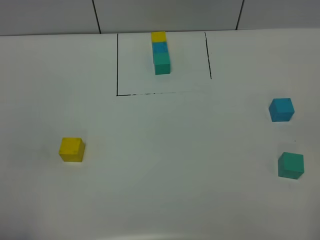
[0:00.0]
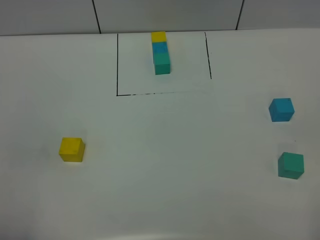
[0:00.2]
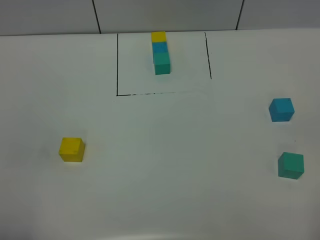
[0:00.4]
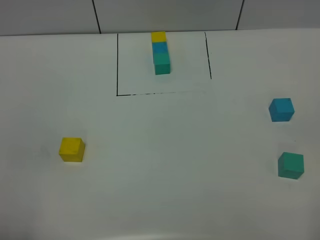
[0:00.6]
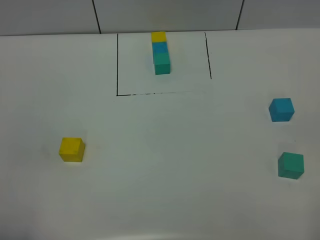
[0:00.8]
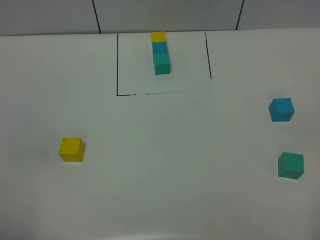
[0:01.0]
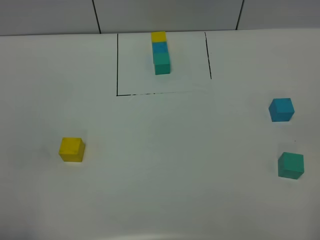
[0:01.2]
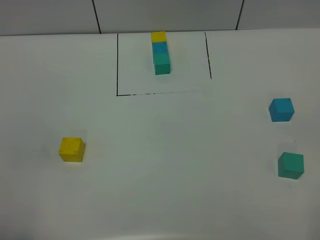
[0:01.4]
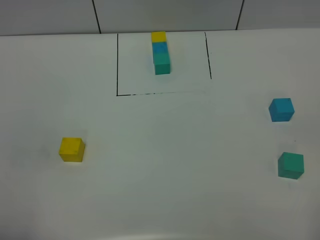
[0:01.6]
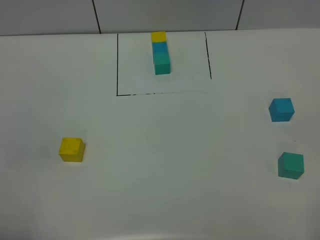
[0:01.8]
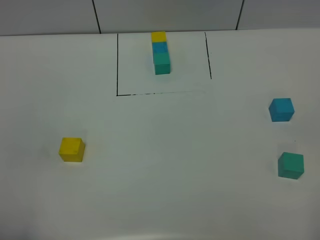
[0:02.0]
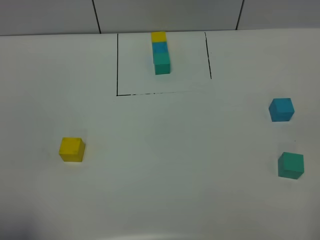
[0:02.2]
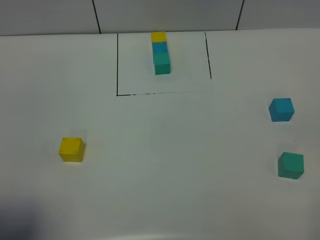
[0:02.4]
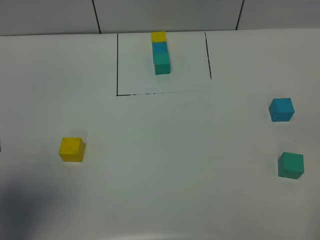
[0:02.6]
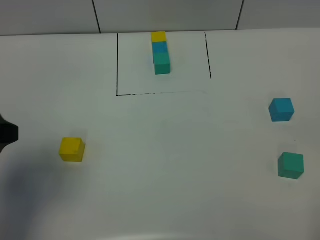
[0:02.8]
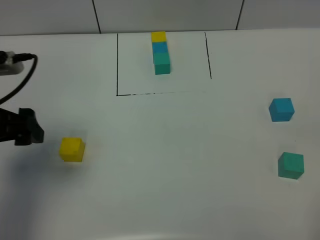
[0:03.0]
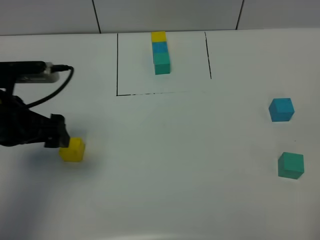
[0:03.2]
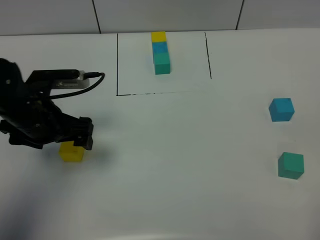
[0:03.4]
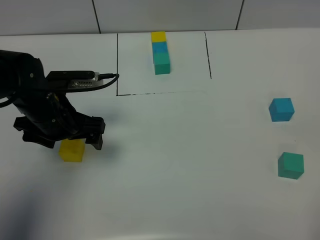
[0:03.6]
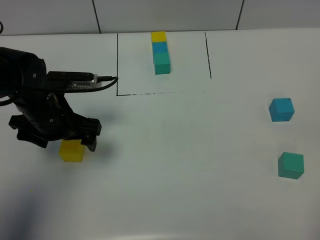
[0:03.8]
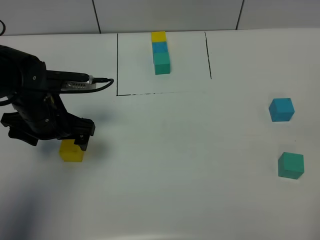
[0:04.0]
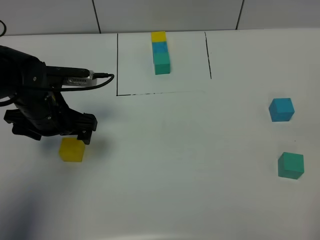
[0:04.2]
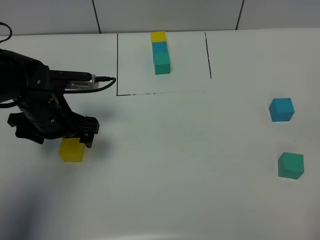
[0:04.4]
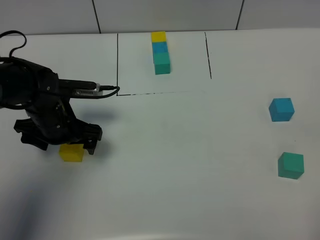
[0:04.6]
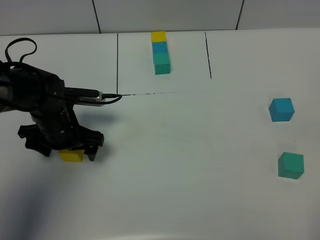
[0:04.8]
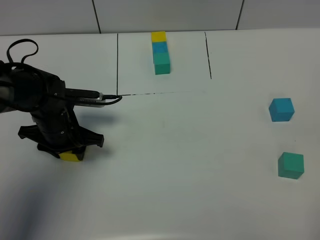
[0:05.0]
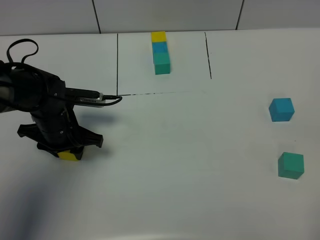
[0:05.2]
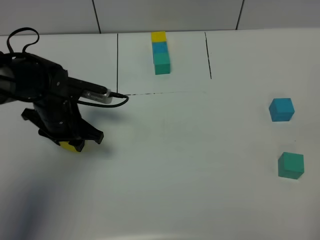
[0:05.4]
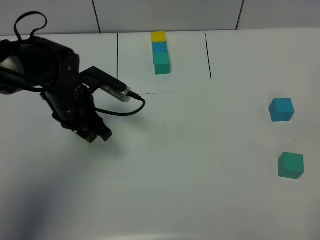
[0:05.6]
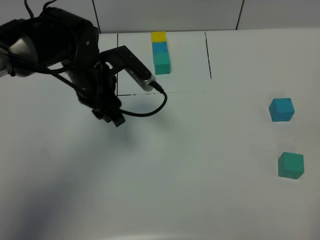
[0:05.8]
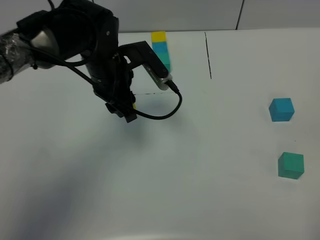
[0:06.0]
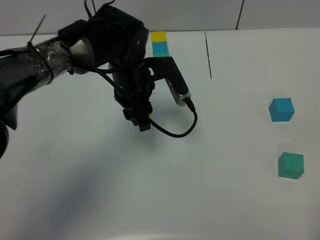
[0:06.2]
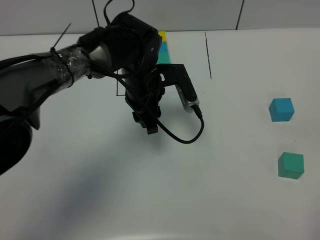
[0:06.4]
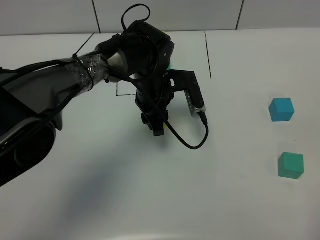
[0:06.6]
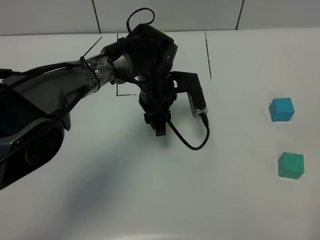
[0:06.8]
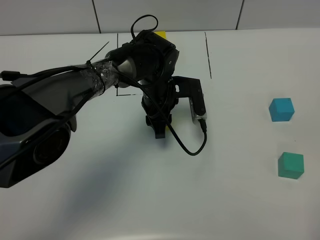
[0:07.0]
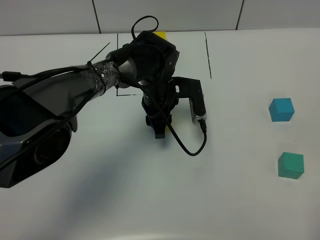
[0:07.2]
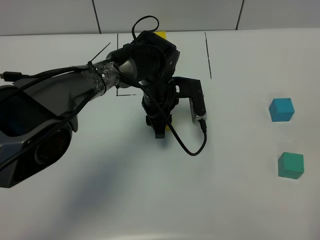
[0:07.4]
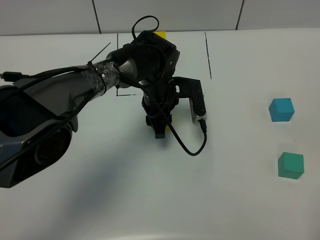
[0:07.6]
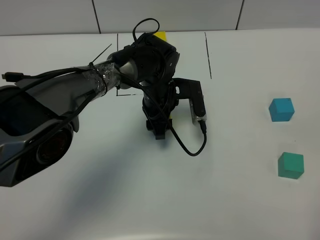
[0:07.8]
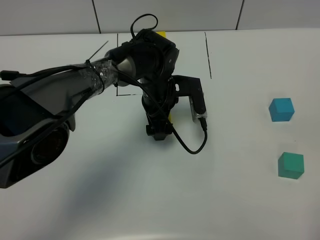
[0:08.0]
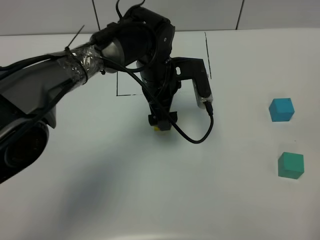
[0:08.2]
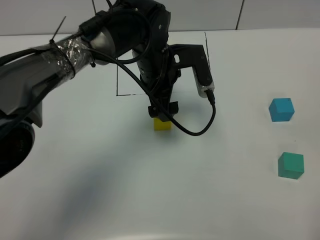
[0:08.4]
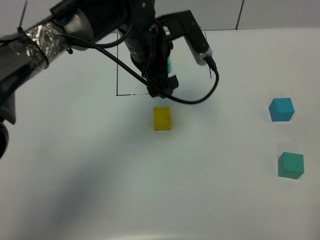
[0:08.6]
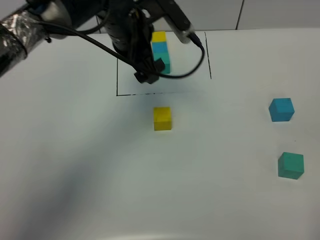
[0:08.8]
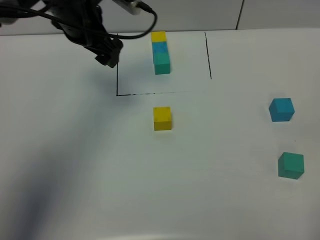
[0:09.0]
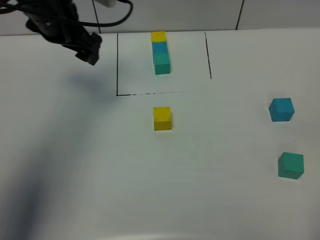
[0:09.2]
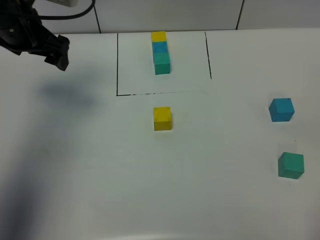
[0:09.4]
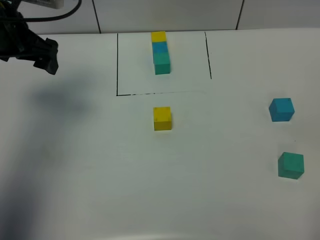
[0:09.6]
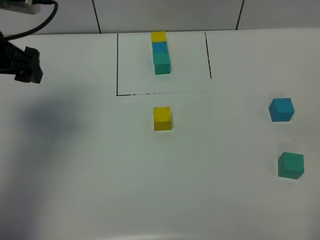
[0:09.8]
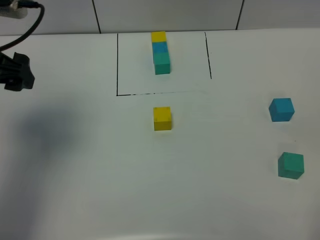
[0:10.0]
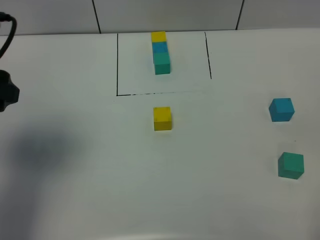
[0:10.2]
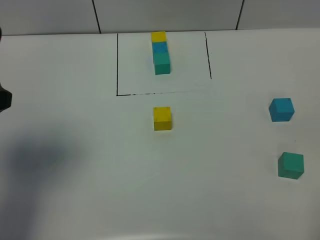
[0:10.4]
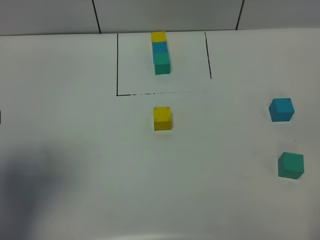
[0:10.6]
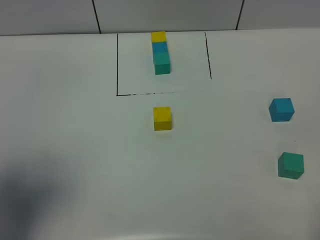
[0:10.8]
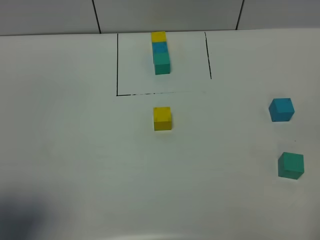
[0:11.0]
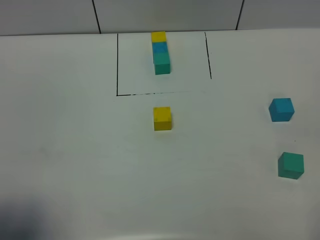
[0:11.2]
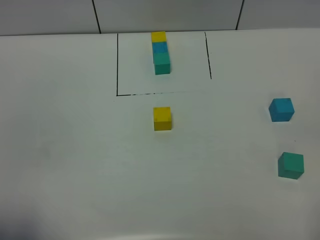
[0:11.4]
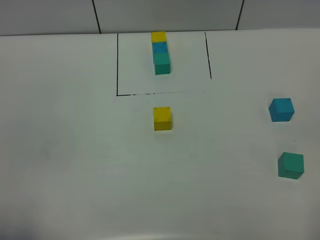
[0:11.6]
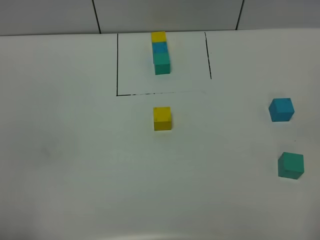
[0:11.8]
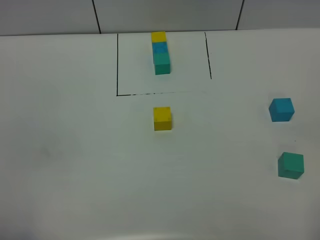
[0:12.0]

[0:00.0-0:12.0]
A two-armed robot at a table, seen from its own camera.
Task of the whole recording: According to the building block template in front, assemble the scattered blocks together.
Step, 0:00.0 to 0:07.8: Put the yellow build block in the center of the table.
0:00.0 to 0:01.6: Neither gripper changes place.
0:01.6 to 0:03.0: The left gripper moves forward, roughly 25 cm.
0:03.0 to 0:04.4: The left gripper is displaced downward, forward and to the right by some 15 cm.
0:04.4 to 0:06.0: The left gripper goes some 15 cm to the right and forward, and closes its fingers.
0:06.0 to 0:07.6: The left gripper is displaced downward and to the right by some 10 cm.
0:07.6 to 0:09.0: The left gripper goes roughly 20 cm upward and to the left, and opens its fingers.
0:09.0 to 0:10.4: The left gripper shifts some 25 cm backward and to the left.
0:10.4 to 0:12.0: The left gripper shifts approximately 20 cm backward.

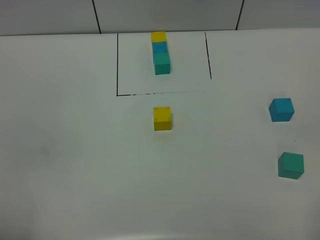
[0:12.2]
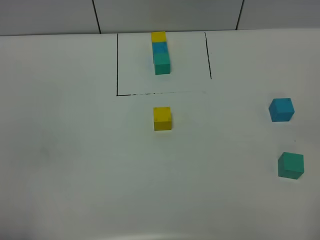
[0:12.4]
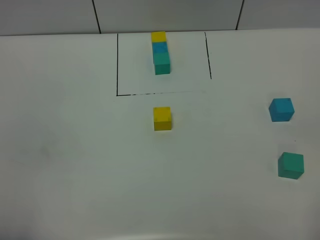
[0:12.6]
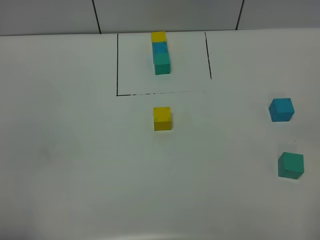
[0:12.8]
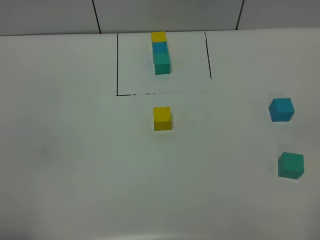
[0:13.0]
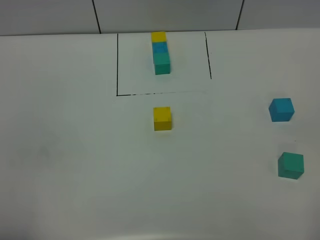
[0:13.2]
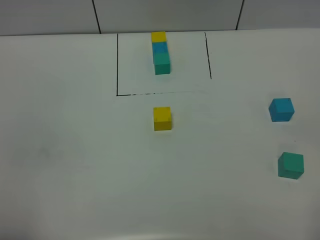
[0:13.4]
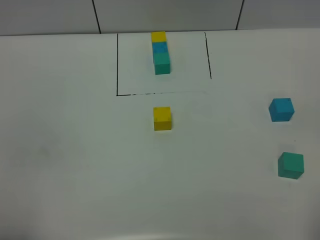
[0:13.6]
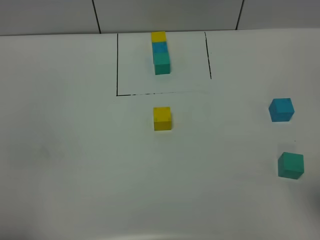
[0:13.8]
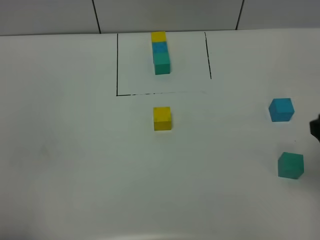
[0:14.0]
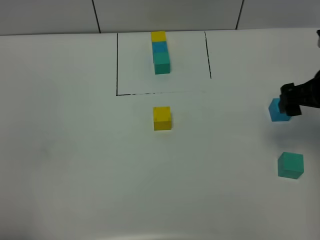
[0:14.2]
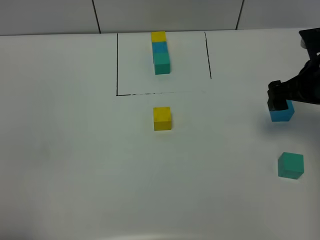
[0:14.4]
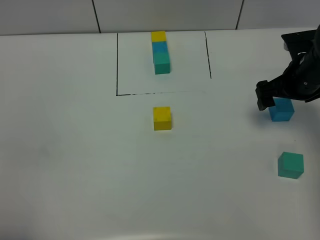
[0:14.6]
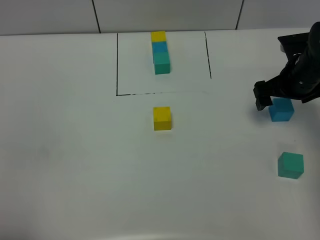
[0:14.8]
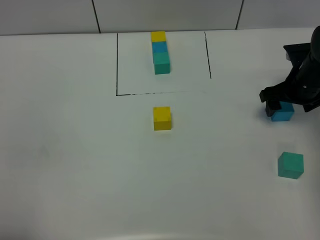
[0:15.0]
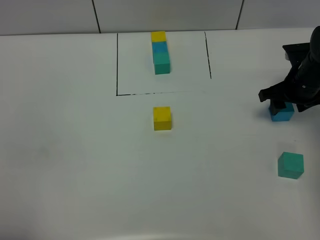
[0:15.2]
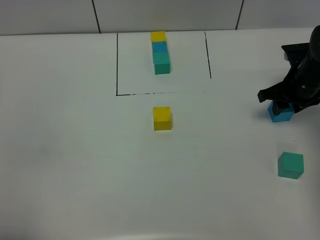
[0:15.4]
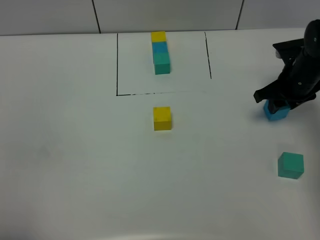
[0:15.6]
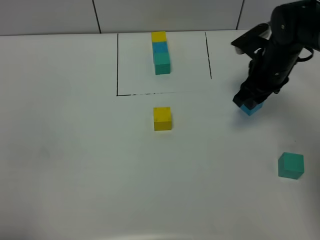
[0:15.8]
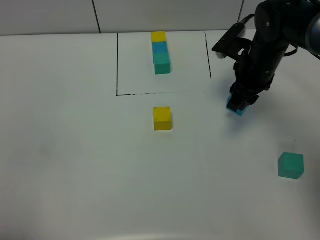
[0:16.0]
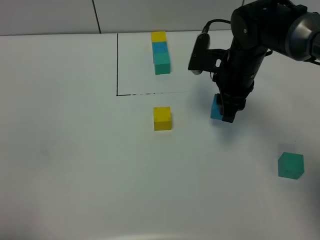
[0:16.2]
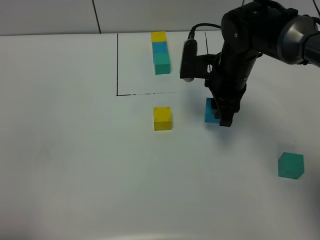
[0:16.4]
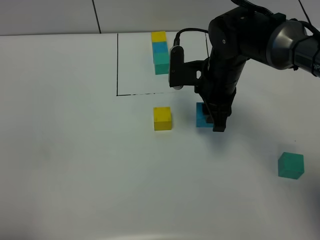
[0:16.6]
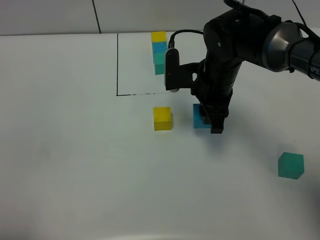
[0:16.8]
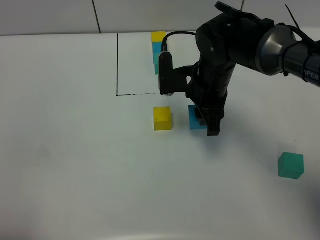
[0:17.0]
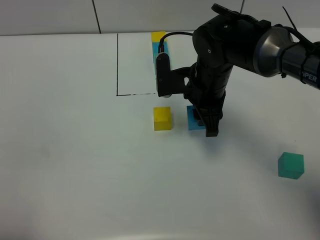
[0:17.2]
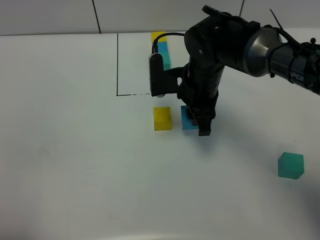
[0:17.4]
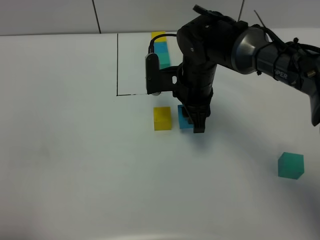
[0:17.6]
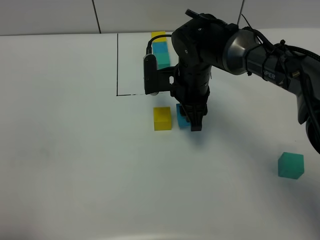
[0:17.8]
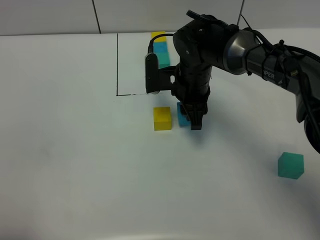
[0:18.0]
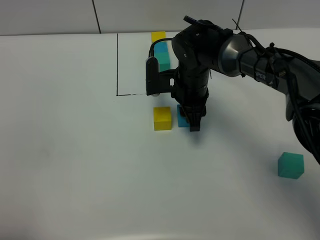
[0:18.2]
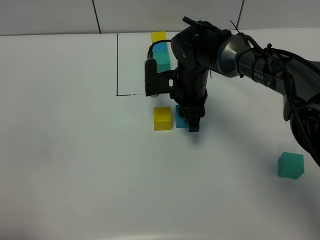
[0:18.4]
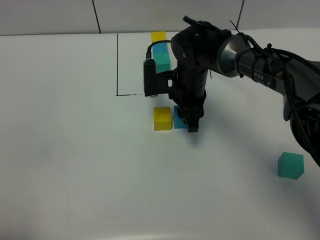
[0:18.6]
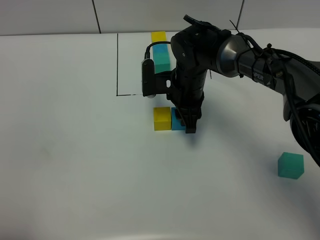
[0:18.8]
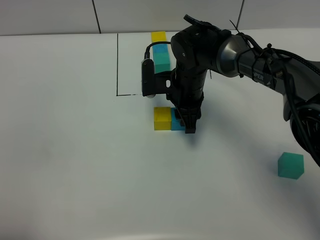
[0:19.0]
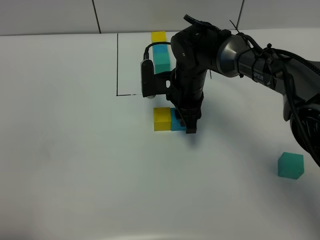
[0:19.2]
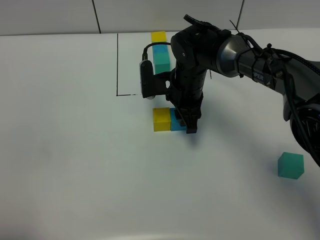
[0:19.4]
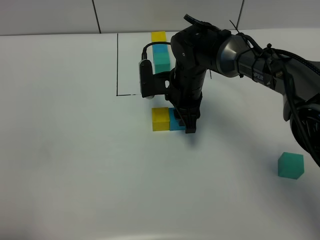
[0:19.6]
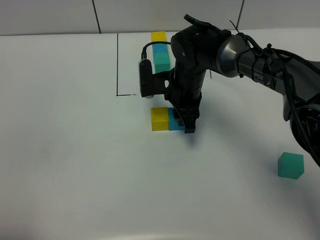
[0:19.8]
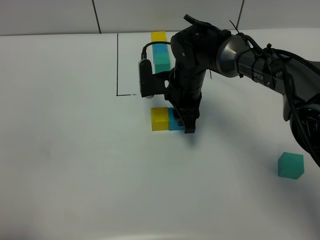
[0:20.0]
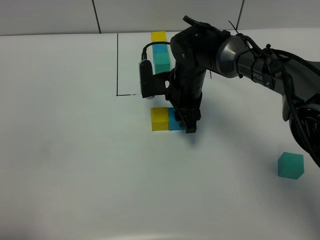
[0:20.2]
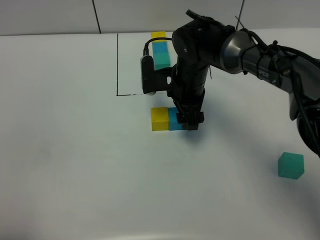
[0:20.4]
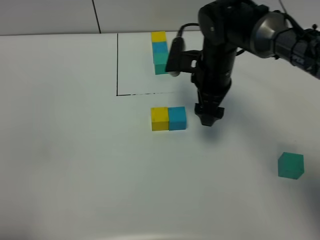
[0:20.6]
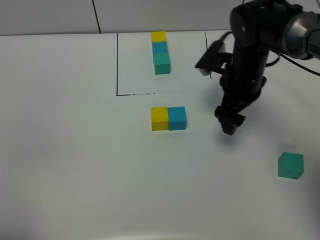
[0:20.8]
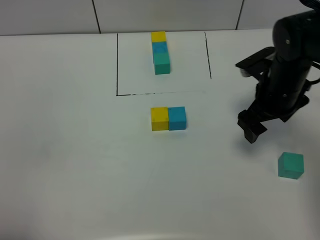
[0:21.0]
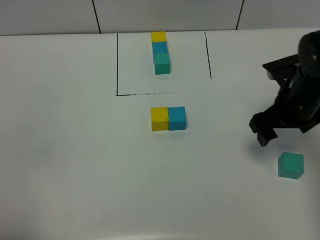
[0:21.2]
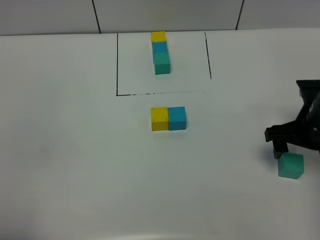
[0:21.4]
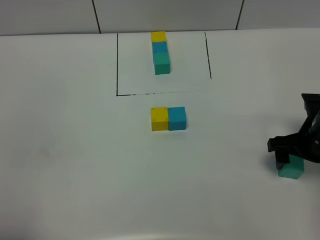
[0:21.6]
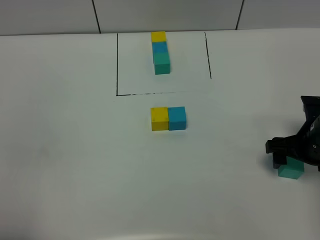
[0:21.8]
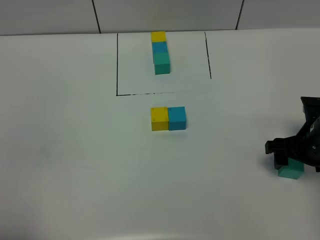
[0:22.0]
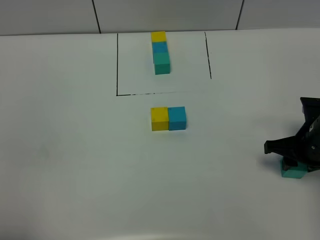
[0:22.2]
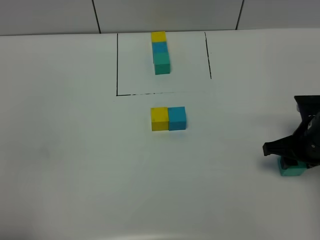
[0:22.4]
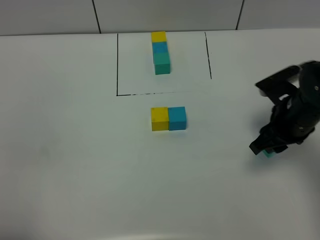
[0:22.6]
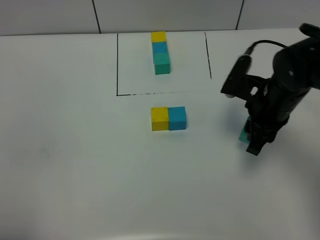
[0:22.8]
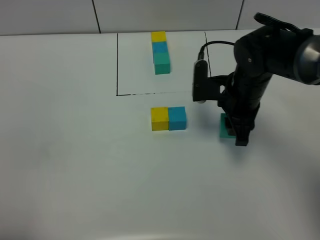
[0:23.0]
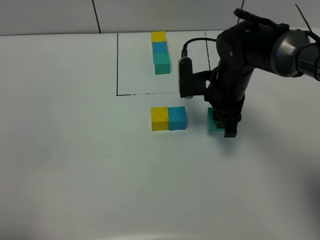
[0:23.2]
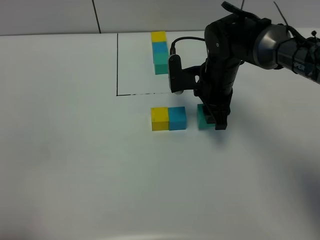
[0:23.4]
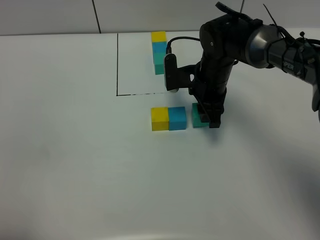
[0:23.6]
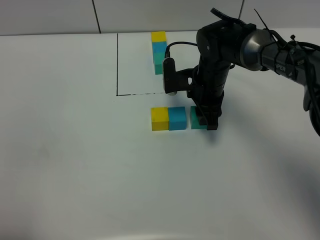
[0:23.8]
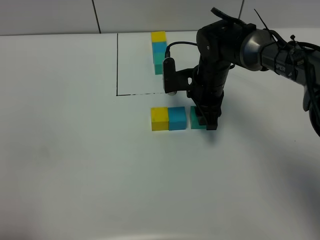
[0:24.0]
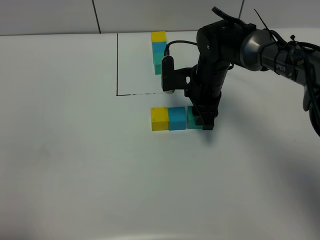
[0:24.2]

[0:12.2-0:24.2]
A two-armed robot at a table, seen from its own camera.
Task of the whole recording: According to the building block template in front, assemble the scattered blocks together.
Step, 0:12.2 to 0:19.8: Put the blue build block on the right of the yellow build block.
0:13.8 to 0:15.2: The right gripper shifts some 30 cm forward and downward, and closes its fingers.
0:15.2 to 0:16.6: The right gripper travels to the left by about 20 cm.
0:16.6 to 0:18.2: The right gripper shifts by approximately 5 cm.
0:18.2 to 0:19.8: The grippers stay close to where they were, moving slightly.
0:19.8 to 0:21.2: The right gripper moves to the right and backward, some 20 cm, and opens up.
0:21.2 to 0:22.6: The right gripper closes its fingers.
0:22.6 to 0:24.2: The right gripper travels to the left and forward by roughly 15 cm.
